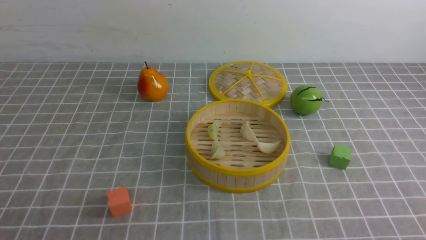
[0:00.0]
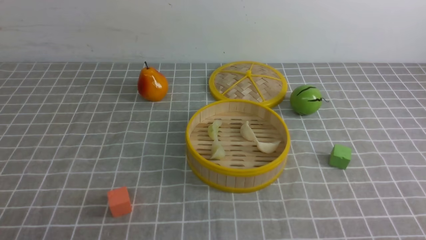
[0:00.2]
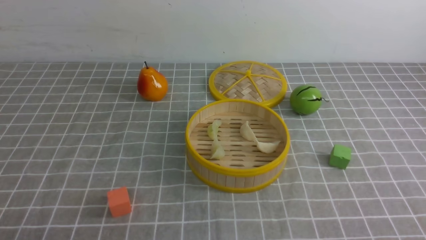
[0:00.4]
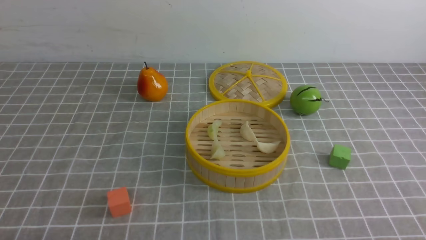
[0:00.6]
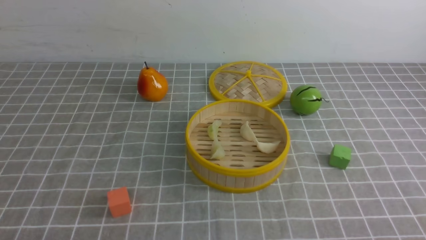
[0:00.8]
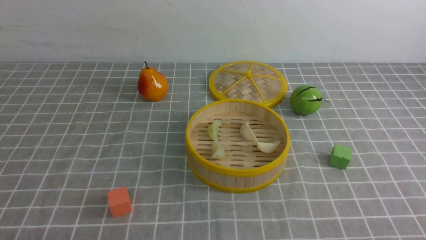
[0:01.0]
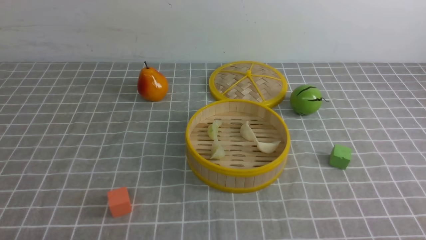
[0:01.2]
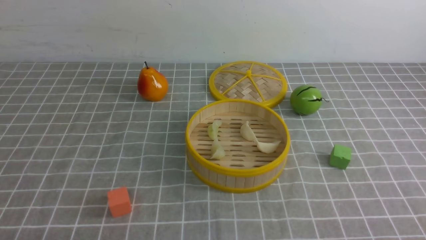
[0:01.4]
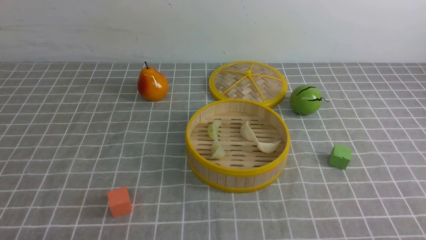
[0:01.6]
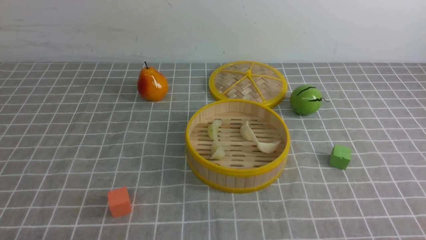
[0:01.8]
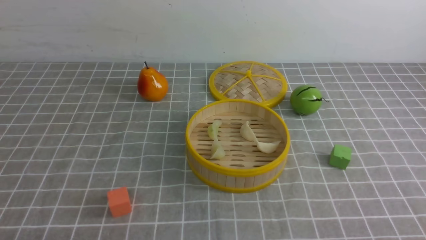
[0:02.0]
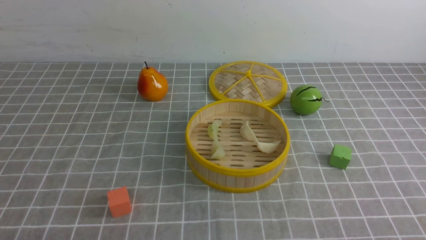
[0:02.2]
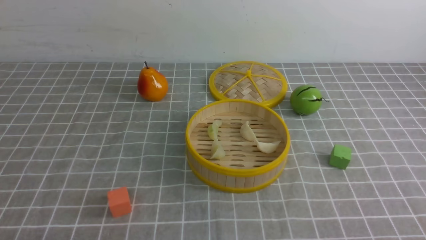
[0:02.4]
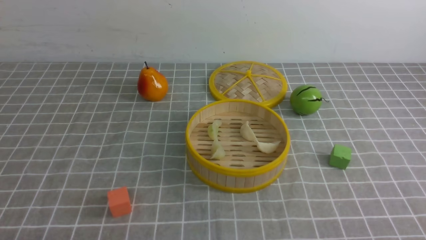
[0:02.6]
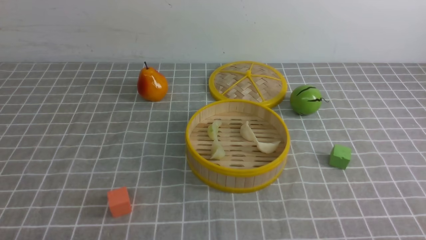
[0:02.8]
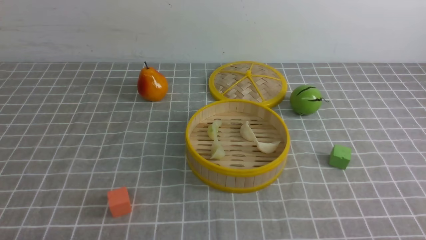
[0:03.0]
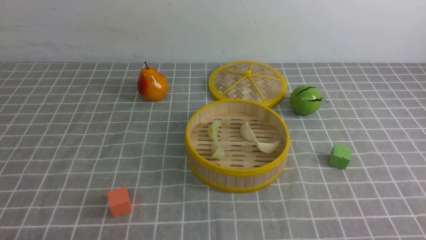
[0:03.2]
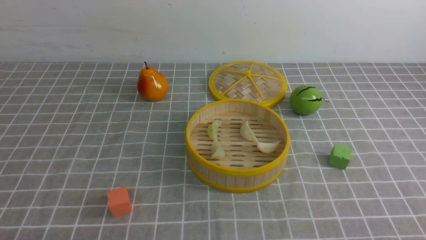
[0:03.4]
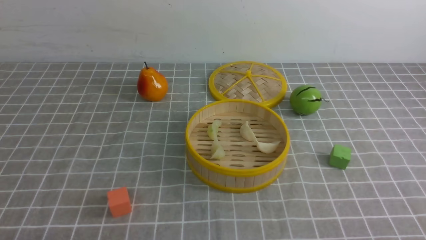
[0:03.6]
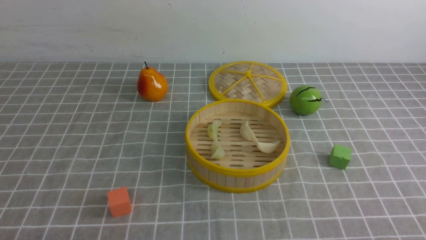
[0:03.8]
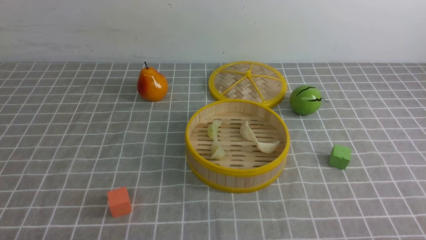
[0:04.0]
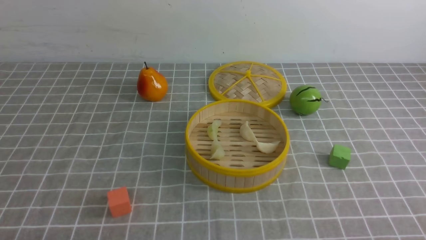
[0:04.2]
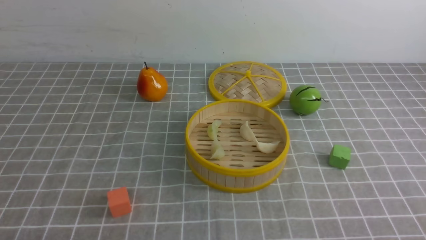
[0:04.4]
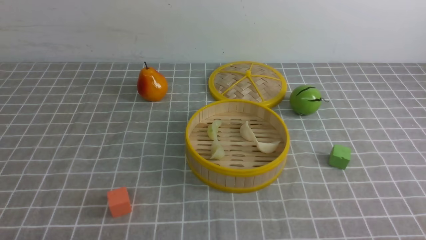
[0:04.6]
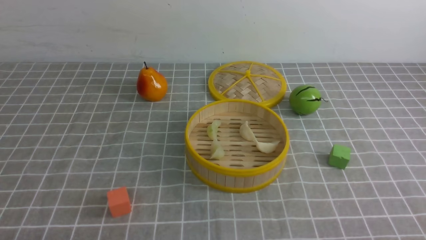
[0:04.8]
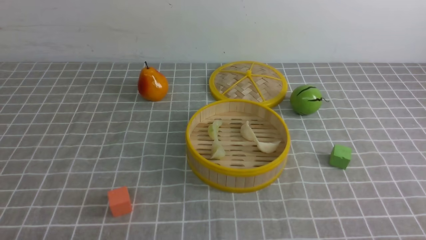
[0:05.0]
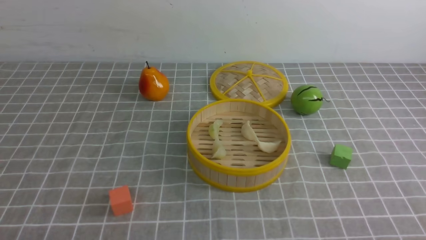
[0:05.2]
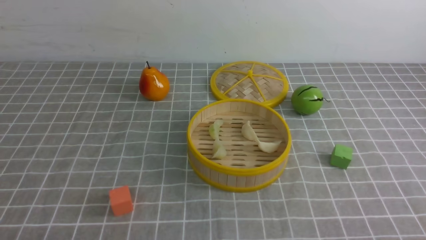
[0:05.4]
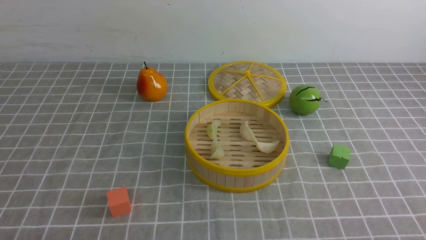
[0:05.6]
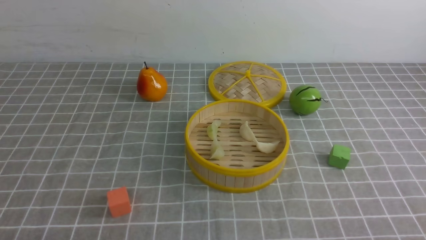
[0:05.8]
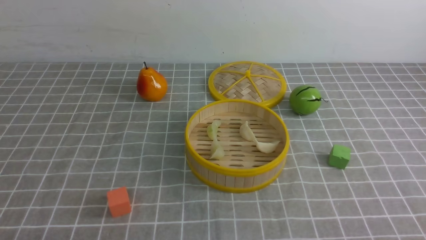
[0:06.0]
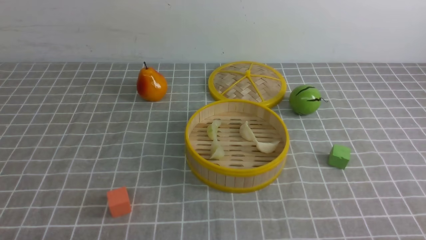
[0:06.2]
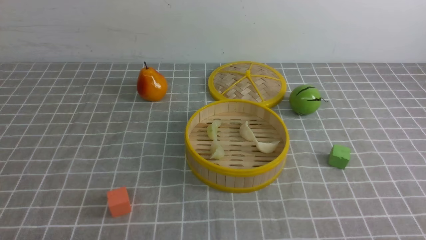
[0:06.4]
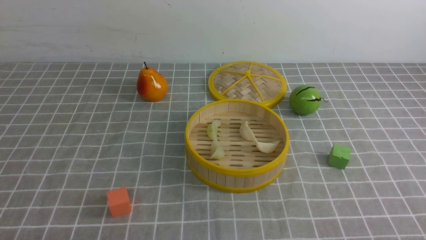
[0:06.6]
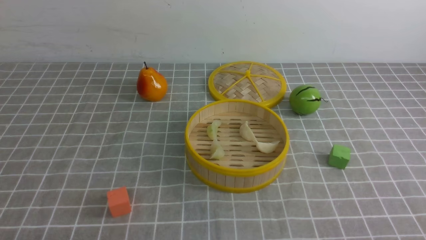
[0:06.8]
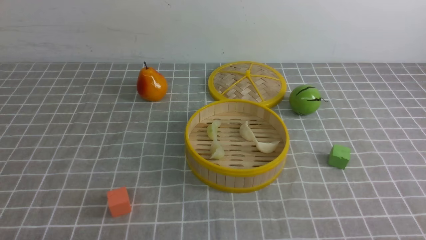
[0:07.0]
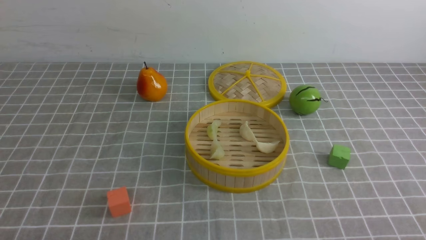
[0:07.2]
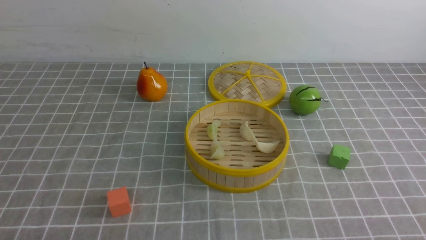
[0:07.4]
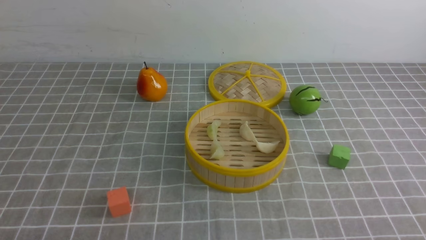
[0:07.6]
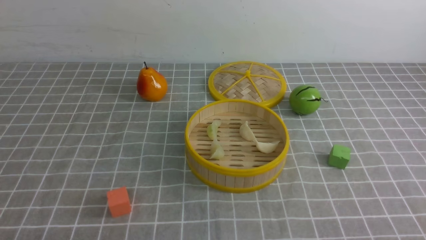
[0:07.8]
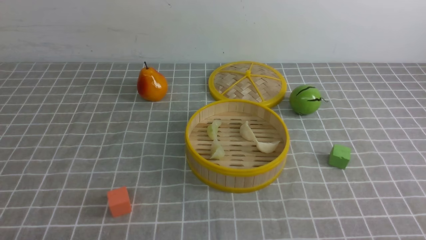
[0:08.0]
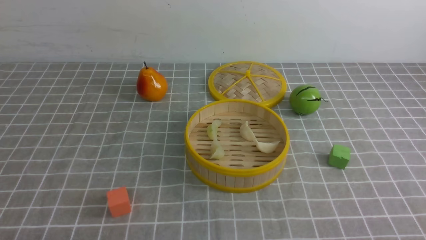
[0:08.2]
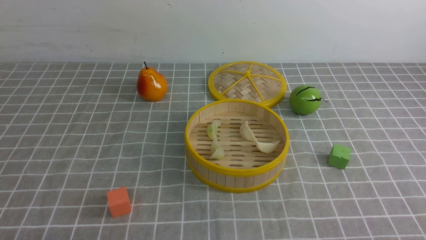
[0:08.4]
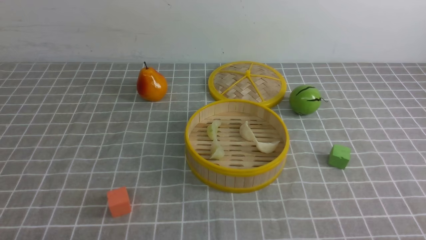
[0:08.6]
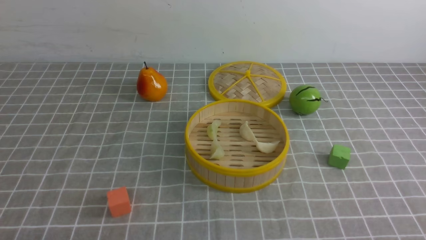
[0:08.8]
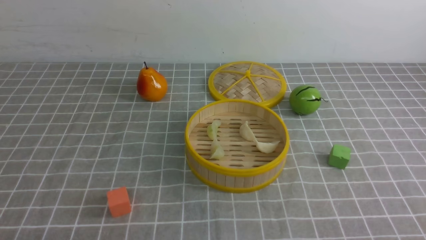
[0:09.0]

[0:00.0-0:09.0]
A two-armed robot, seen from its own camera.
Task of the whole recording: put the dumplings into the steamer on the table with the grey tablecloth.
0:01.6 to 0:09.0: The two grippers keep their place.

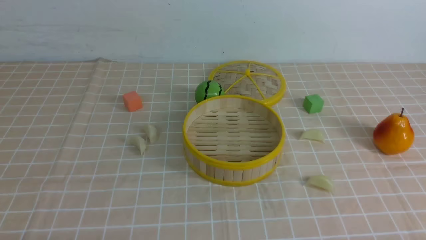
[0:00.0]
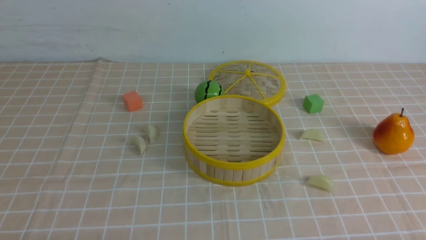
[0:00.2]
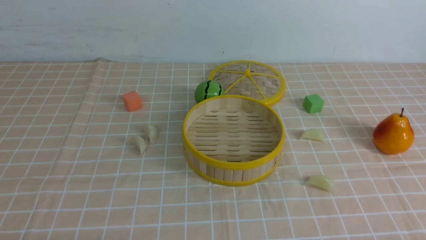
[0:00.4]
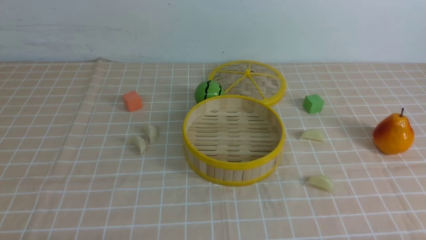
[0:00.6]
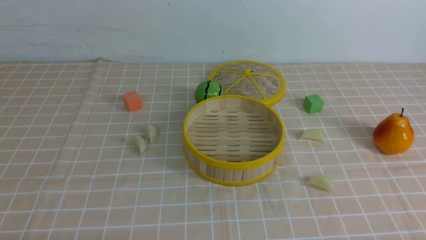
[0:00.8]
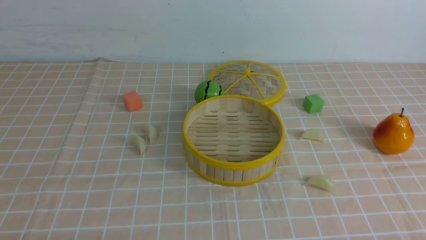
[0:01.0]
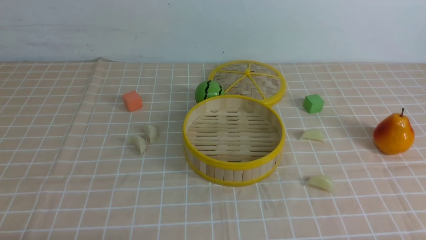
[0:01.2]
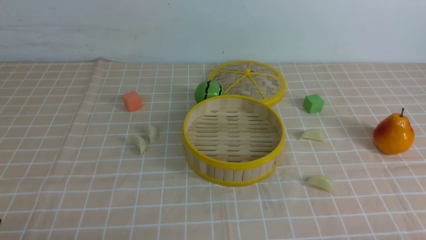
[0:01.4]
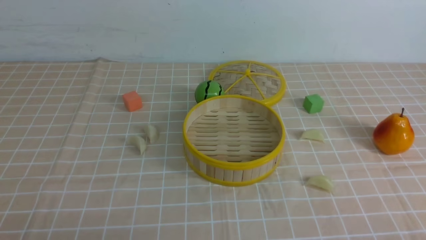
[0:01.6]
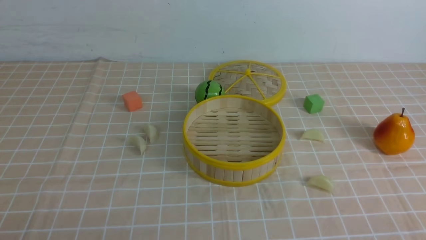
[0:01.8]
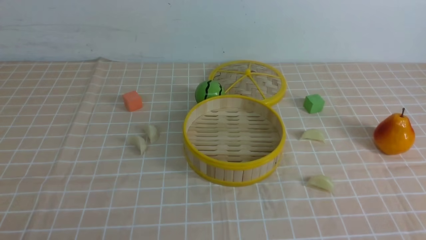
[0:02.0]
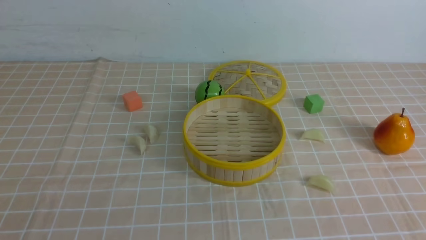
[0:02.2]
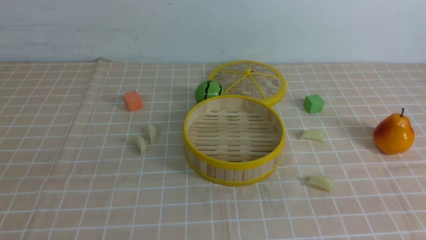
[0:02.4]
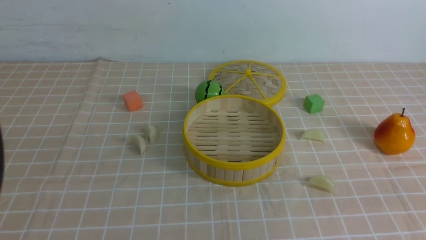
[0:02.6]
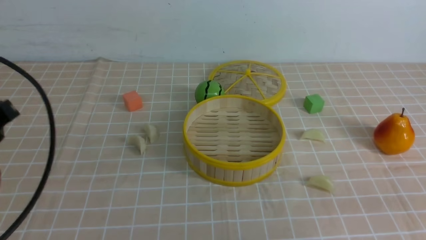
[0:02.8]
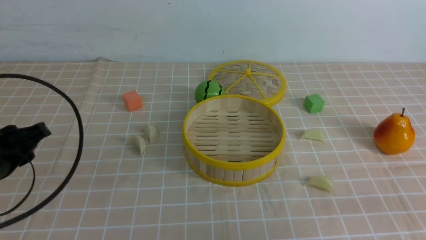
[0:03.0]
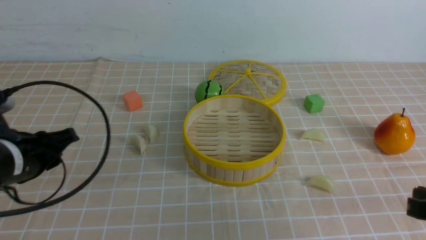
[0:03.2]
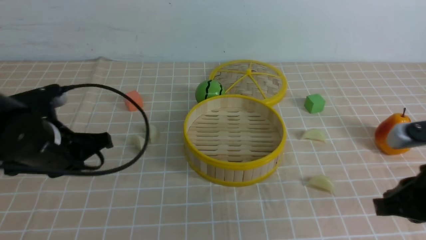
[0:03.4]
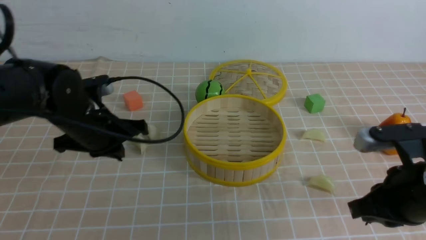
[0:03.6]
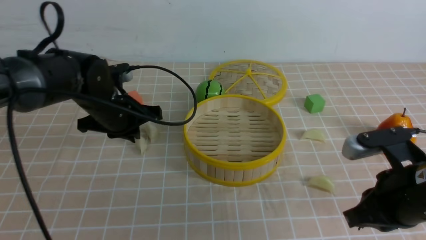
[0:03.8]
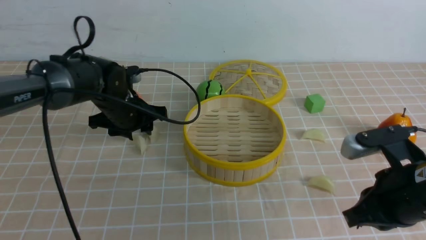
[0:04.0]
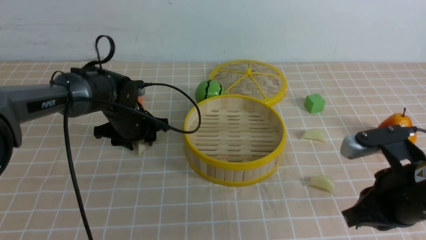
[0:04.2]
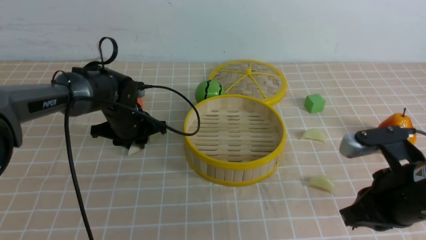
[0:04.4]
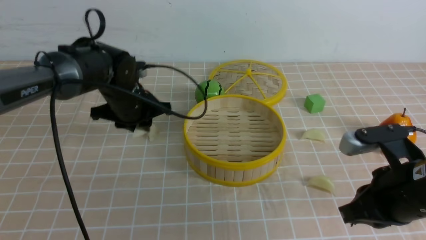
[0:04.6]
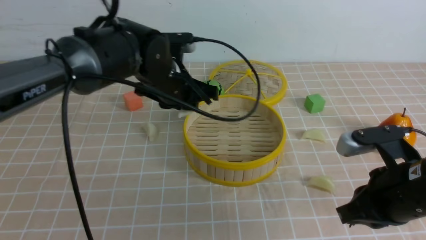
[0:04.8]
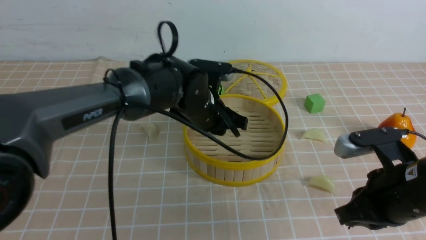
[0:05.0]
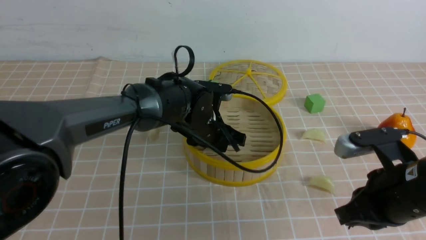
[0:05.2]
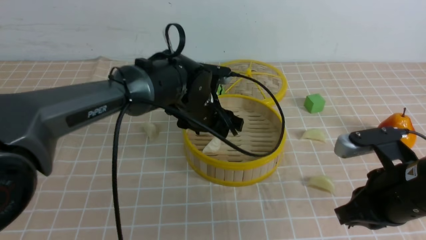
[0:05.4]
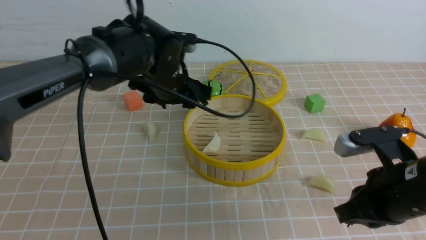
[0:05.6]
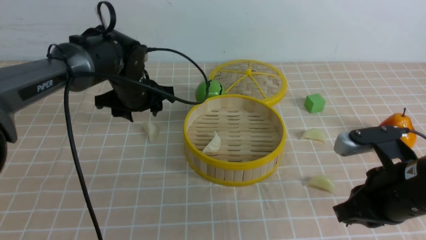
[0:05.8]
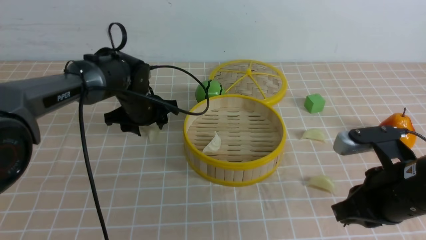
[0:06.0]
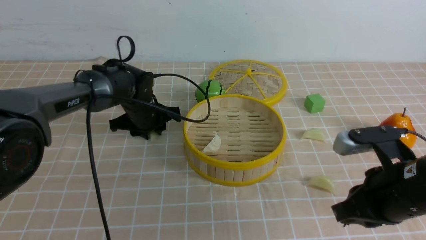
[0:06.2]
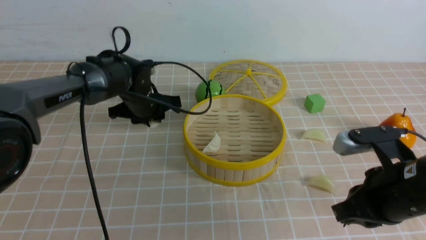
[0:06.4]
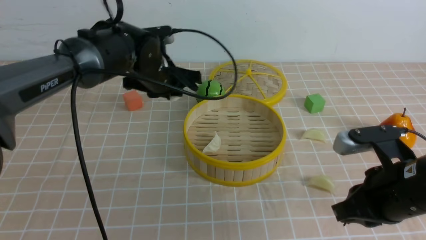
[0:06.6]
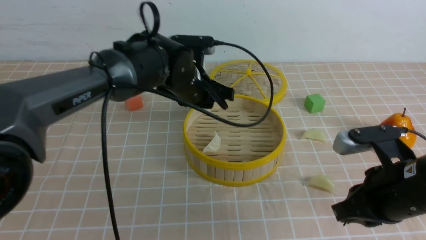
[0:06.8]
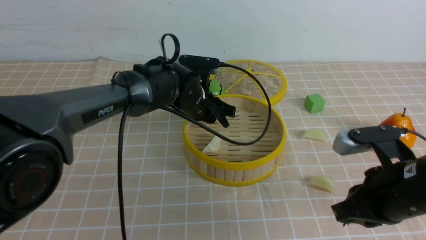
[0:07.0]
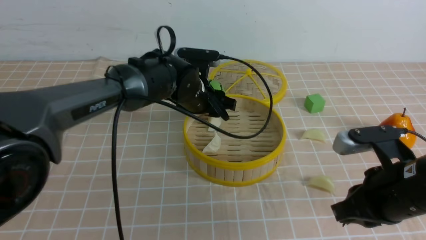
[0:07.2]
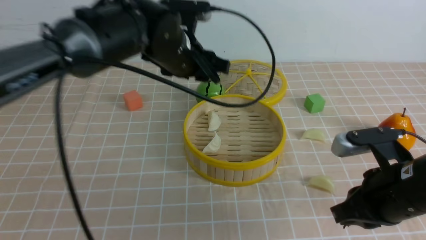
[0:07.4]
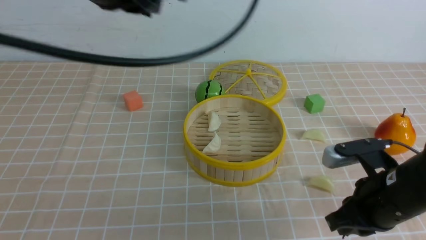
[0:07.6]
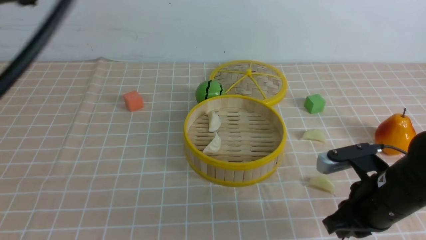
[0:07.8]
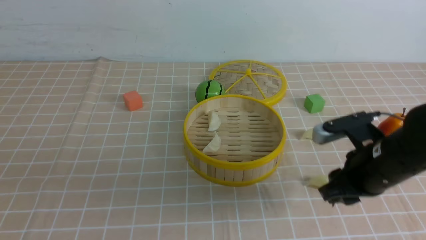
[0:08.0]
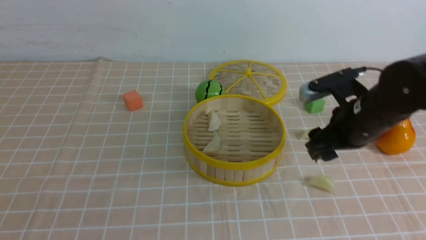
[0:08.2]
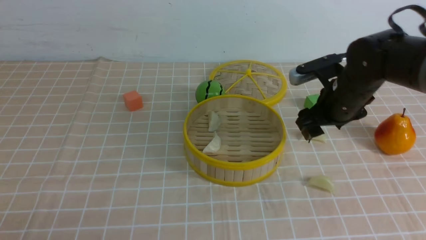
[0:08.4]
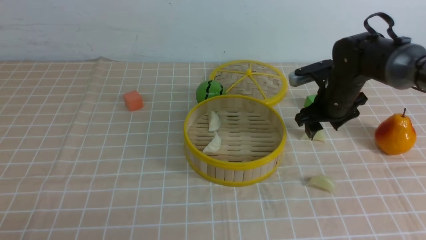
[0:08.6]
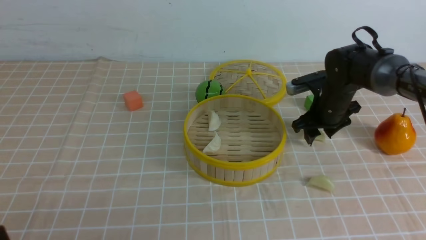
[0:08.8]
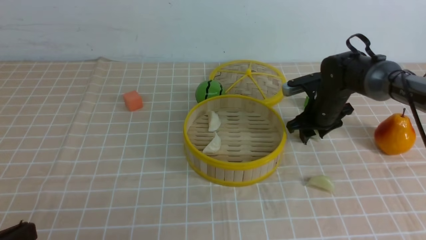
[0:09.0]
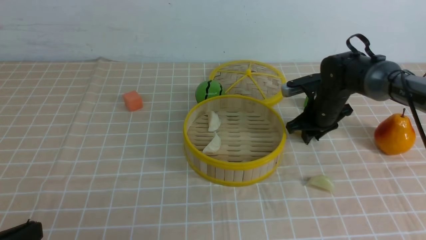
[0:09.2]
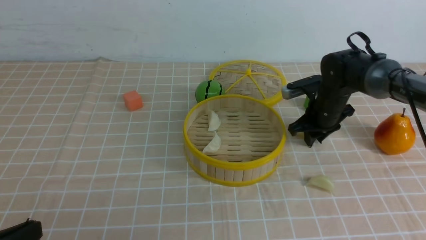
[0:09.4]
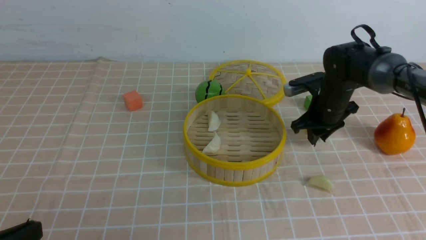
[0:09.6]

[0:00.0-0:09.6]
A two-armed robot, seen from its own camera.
Task of the whole recording: put the dumplings into the steamer on the table with the brown tablecloth.
Step, 0:00.0 to 0:04.2: use the left arm to grab a dumpling.
Step, 0:04.4 to 0:05.4: use the left arm to put the dumpling into the steamer.
Step, 0:05.6 to 0:06.2: use the left arm to grab a dumpling.
Step, 0:06.4 to 0:07.4: use the left arm to put the dumpling into the steamer.
Step, 0:07.6 to 0:09.2: use the right arm to grab a dumpling.
0:01.6 to 0:03.2: The left gripper is displaced forward by roughly 20 cm. Meanwhile the right gripper goes about 10 cm forward, and closes up.
0:03.2 to 0:04.8: The left gripper heads to the right and forward, covering roughly 25 cm. Meanwhile the right gripper heads to the left and forward, covering approximately 10 cm.
0:04.8 to 0:06.4: The left gripper travels forward by roughly 5 cm, and opens, then closes once more.
0:06.4 to 0:08.0: The right gripper travels forward by approximately 5 cm, and opens, while the left gripper shifts approximately 40 cm backward and upward, and closes its fingers.
0:08.0 to 0:09.6: The right gripper shifts roughly 20 cm forward. Meanwhile the left gripper shifts roughly 15 cm downward.